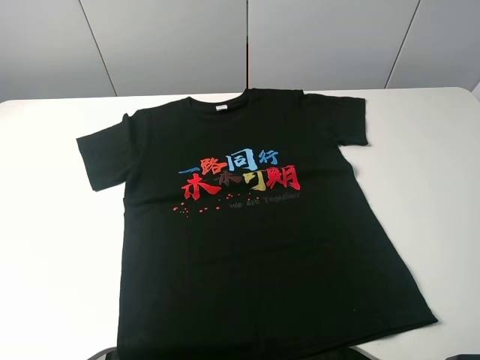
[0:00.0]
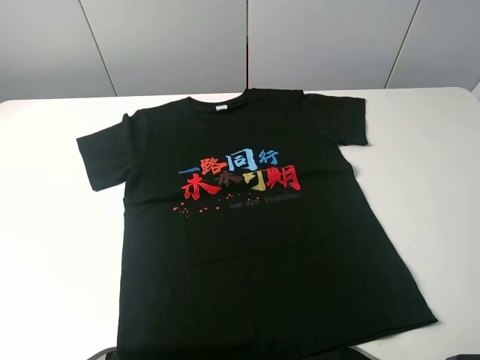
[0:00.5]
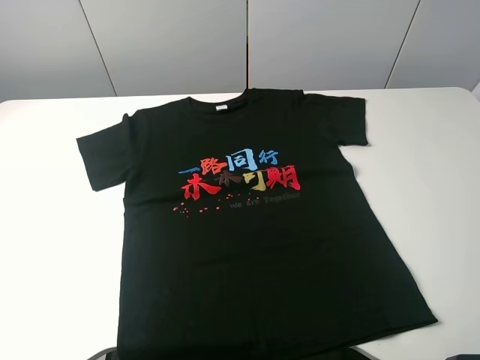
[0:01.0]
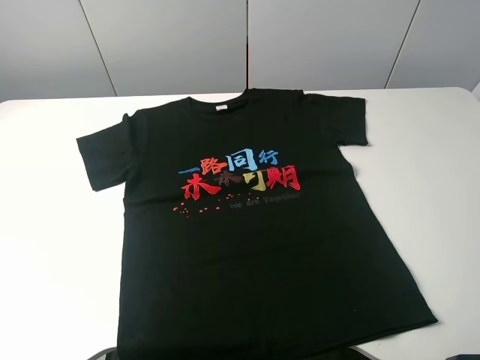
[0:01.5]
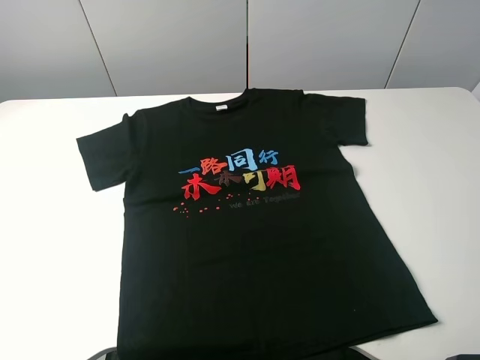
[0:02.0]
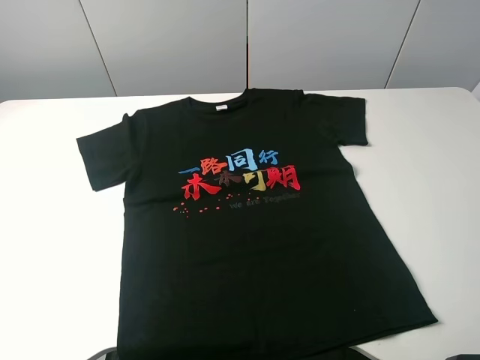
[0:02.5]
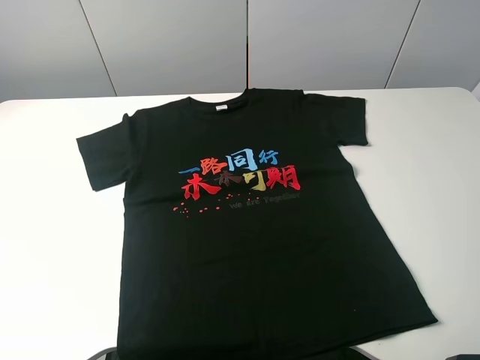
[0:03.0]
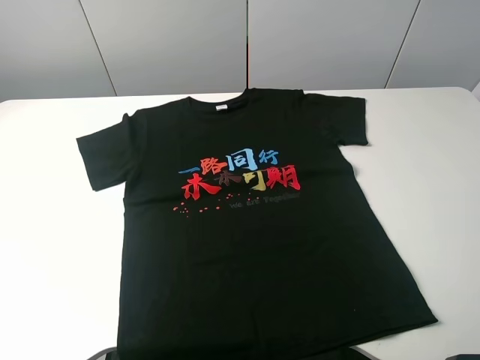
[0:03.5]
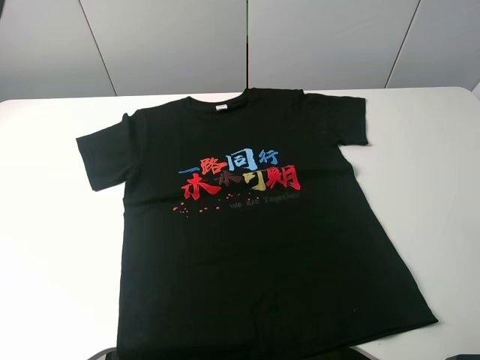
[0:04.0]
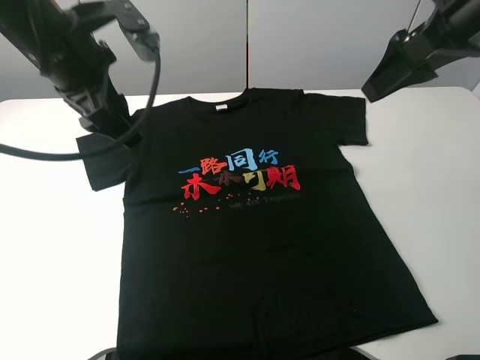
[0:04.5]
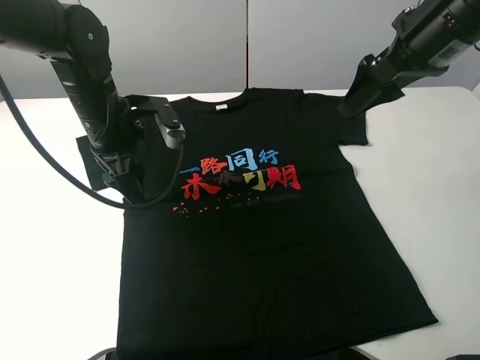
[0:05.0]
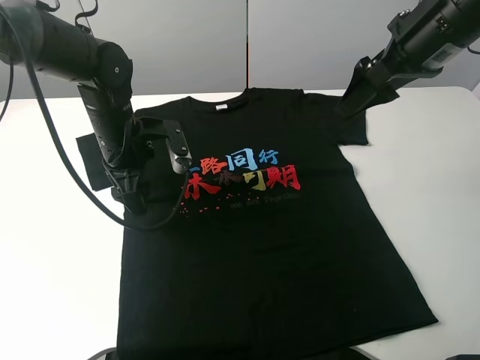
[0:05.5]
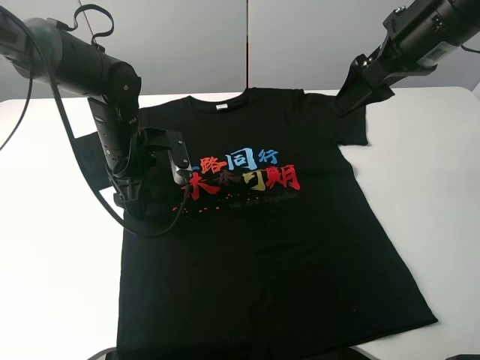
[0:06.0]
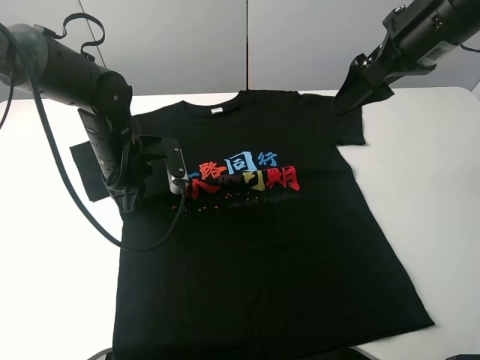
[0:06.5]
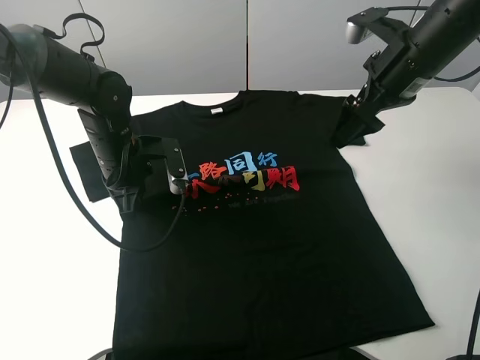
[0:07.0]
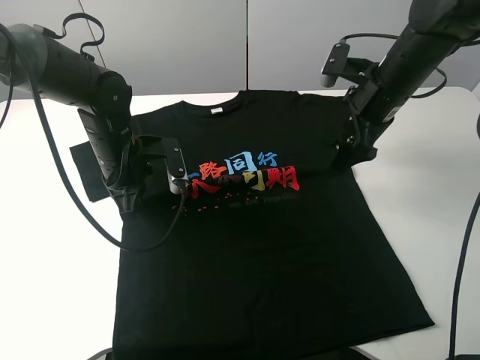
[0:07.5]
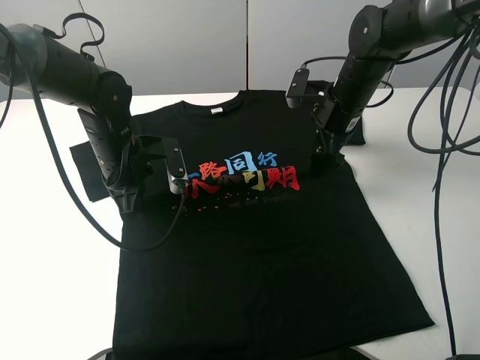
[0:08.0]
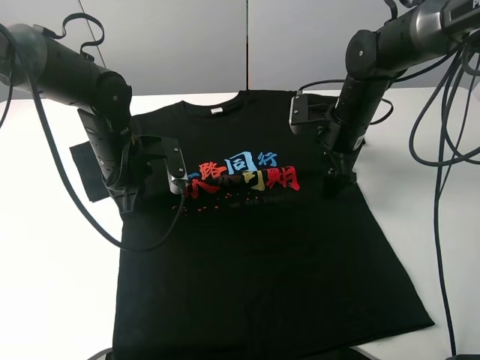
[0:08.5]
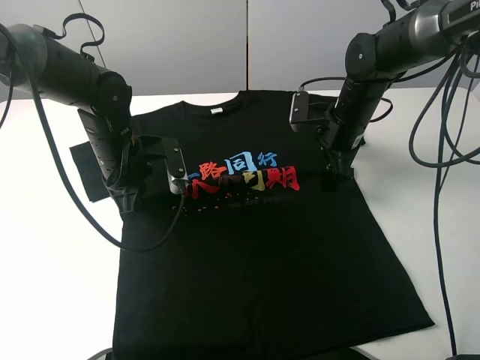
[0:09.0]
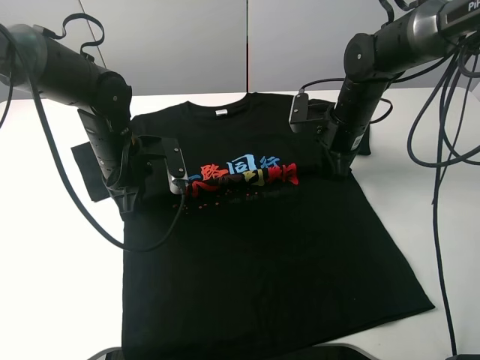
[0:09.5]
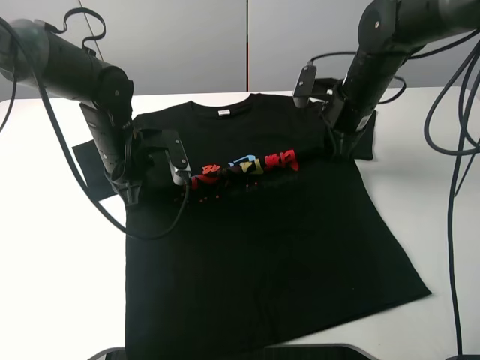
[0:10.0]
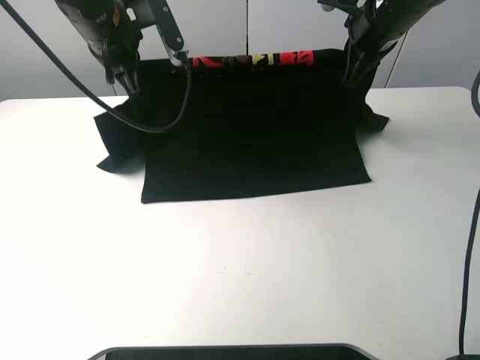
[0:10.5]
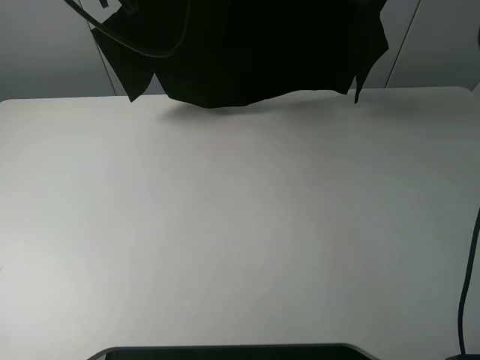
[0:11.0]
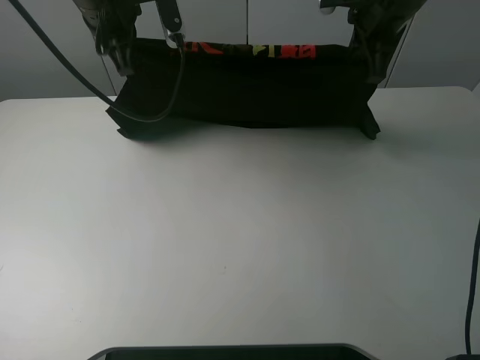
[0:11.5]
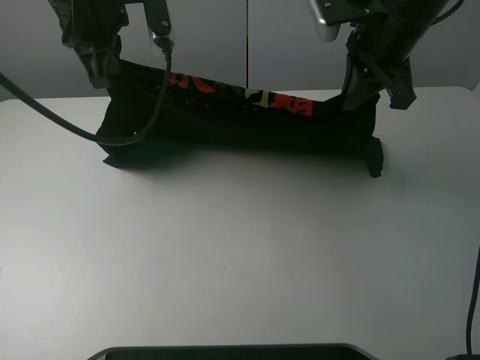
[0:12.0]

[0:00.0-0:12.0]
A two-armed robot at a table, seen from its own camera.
Task of the whole recording: fold the clothes on the table.
Step, 0:00.0 to 0:09.5: Lift the black T-shirt with the left gripper.
0:00.0 to 0:02.0: Both grippers stay about where they are.
0:04.0 to 0:06.0: The right gripper goes roughly 20 cm forward, downward and to the left, while the left gripper goes approximately 30 cm downward and to the right.
0:06.0 to 0:08.0: The right gripper goes roughly 15 cm downward and forward. Meanwhile the left gripper closes up.
0:08.0 to 0:10.0: The right gripper closes.
0:10.0 to 0:12.0: The right gripper travels upward by approximately 10 cm. Meanwhile the left gripper is displaced upward by about 20 cm.

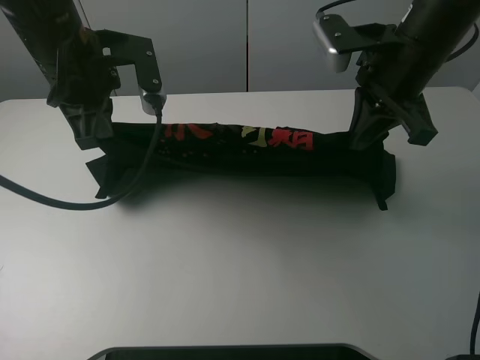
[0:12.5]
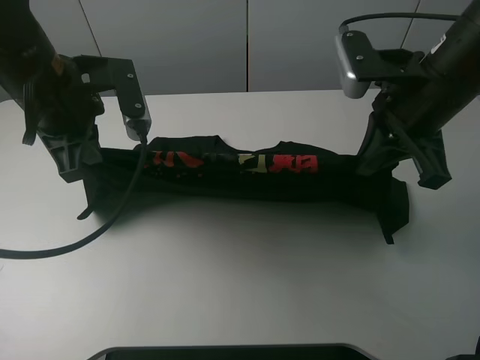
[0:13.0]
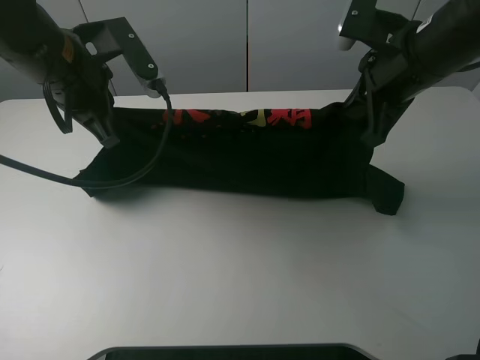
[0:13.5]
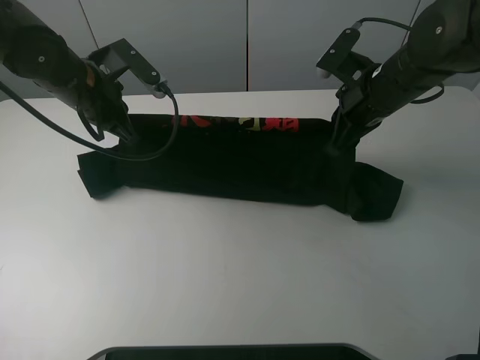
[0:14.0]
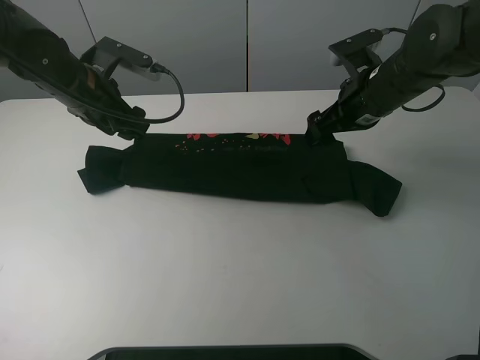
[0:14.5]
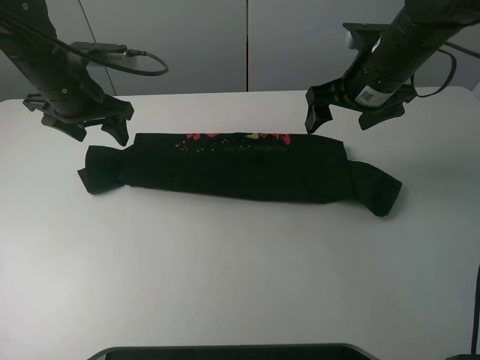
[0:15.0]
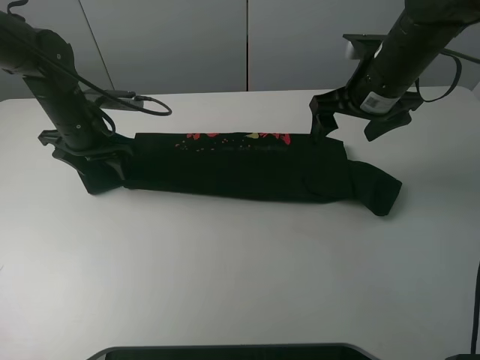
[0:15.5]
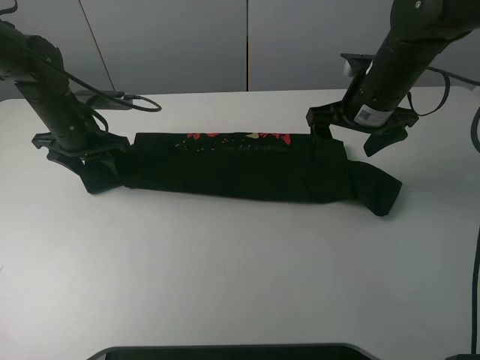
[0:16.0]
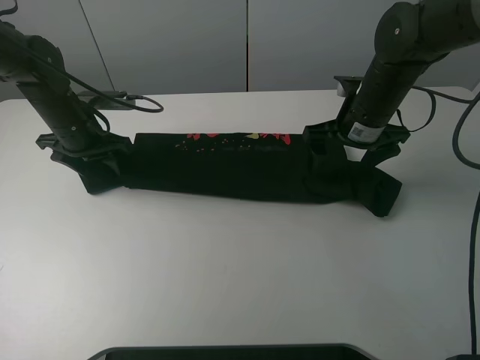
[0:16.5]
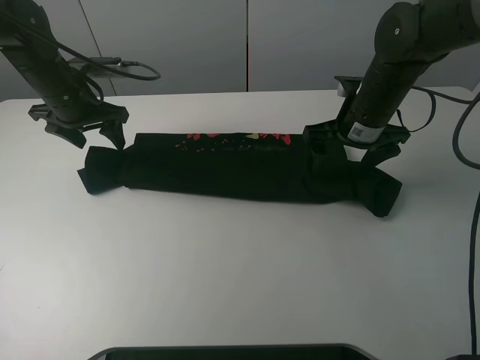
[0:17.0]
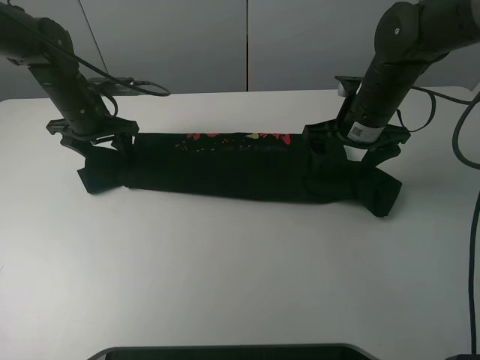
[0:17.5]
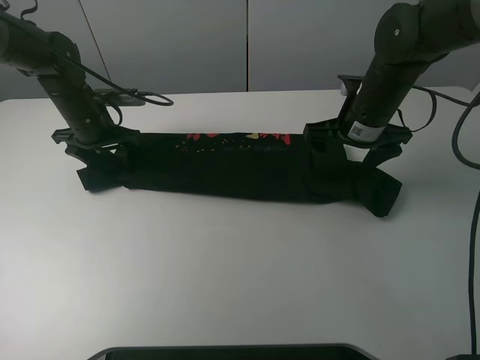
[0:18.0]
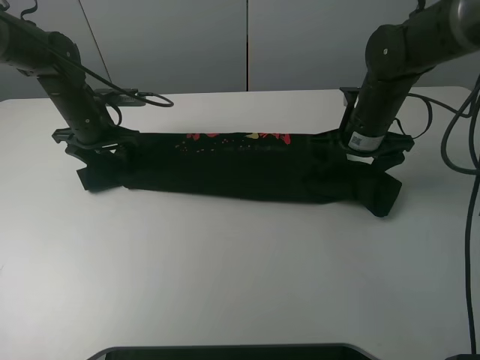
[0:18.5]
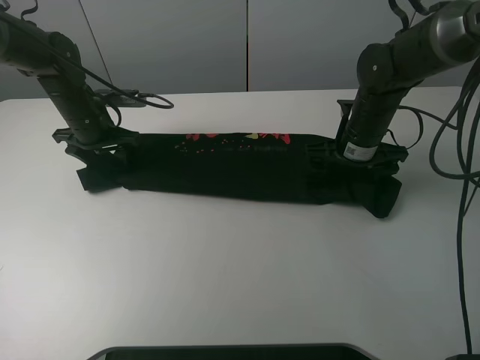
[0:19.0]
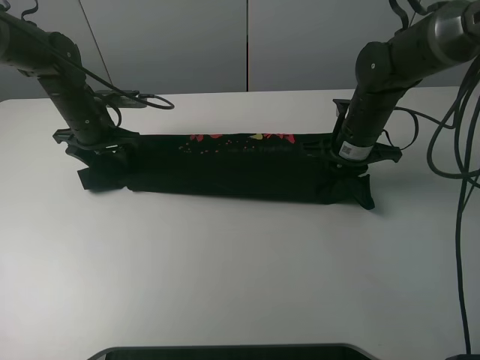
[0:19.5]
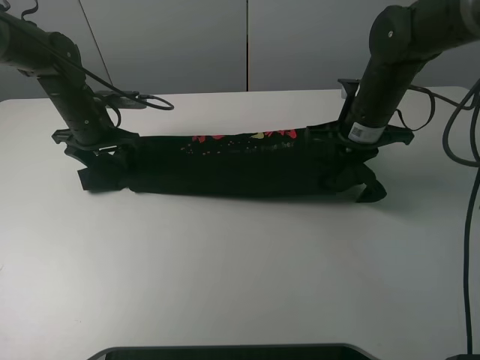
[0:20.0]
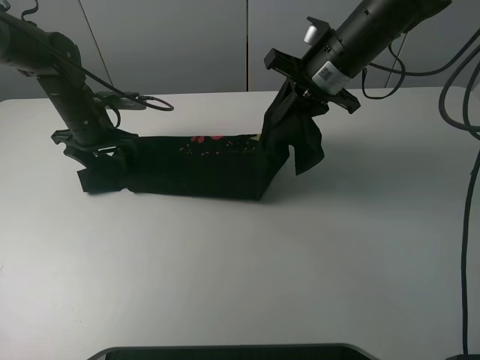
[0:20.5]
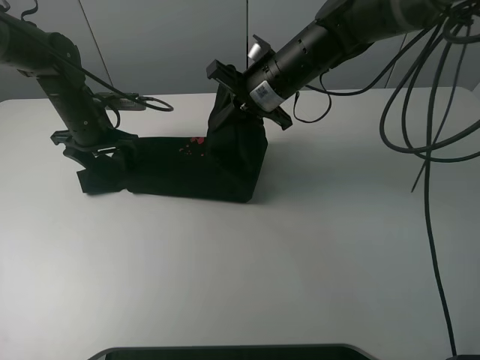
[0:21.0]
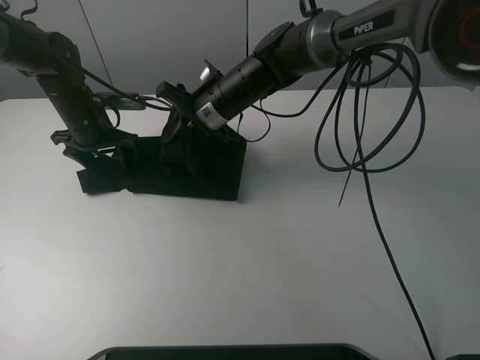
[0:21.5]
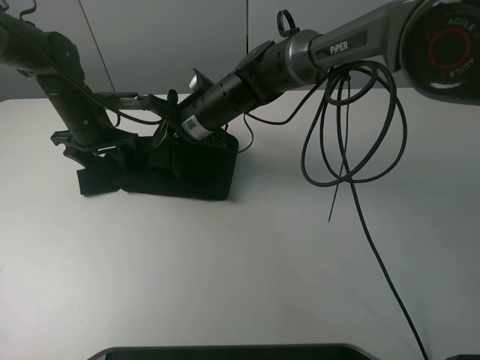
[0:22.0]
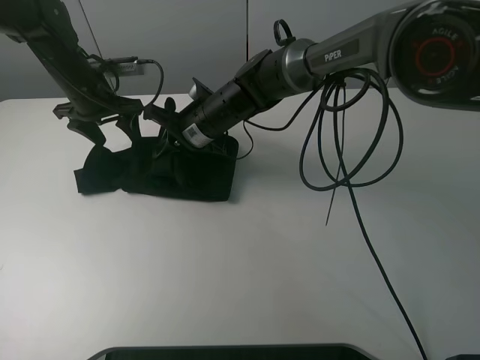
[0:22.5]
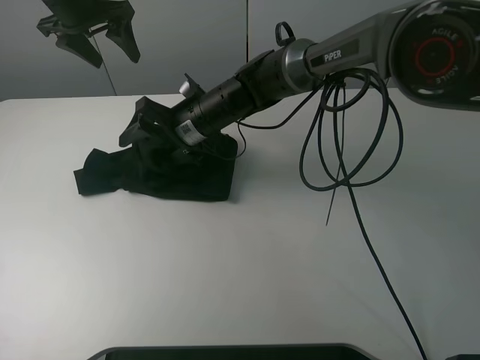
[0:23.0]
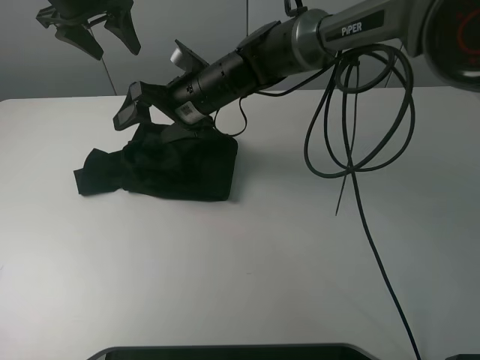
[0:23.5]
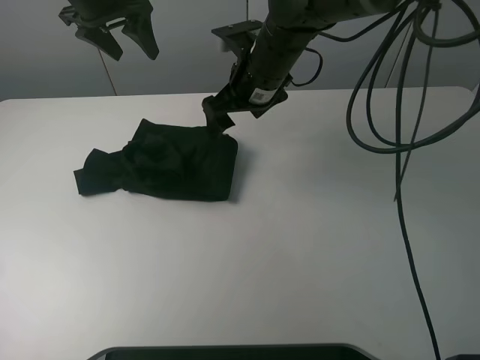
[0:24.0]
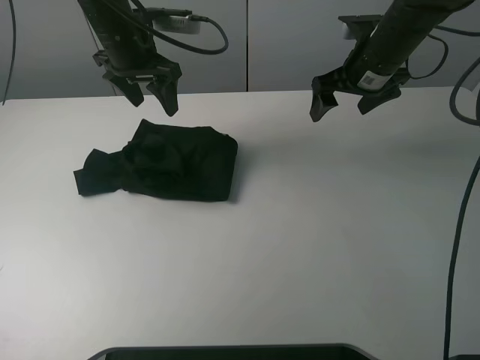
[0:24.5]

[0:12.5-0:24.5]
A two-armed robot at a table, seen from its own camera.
Task of the whole recording: fold the clothes on the table.
Step, 0:14.5 to 0:19.5: Grasp the black T-shirt with the right gripper.
Step, 0:20.0 to 0:23.5: Fold the black T-shirt from right to left with right gripper.
0:12.5 to 0:14.5: The left gripper is displaced downward and forward by approximately 10 cm, and opens its fingers. The right gripper goes some 10 cm downward, and opens its fingers.
0:14.5 to 0:16.5: The left gripper moves downward, some 5 cm.
0:16.5 to 0:18.5: There are only small adjustments of the grippers.
0:18.5 to 0:20.5: The right gripper travels upward and to the left by approximately 10 cm, and closes.
0:20.5 to 0:22.5: The right gripper travels to the left and downward by roughly 20 cm. Meanwhile the left gripper travels upward by approximately 5 cm.
0:22.5 to 0:24.5: The right gripper heads to the right and upward, covering some 25 cm, and opens its fingers; the left gripper shifts approximately 10 cm to the right and upward.

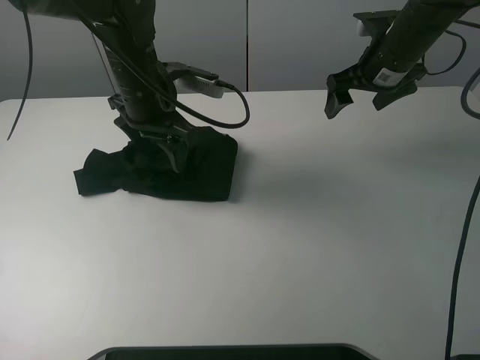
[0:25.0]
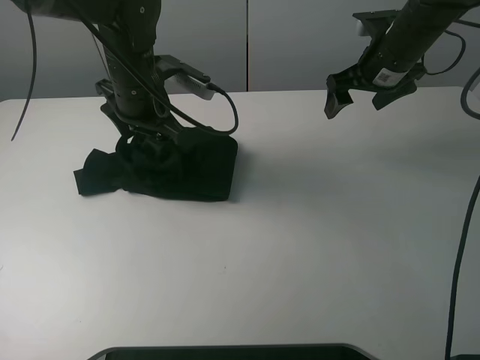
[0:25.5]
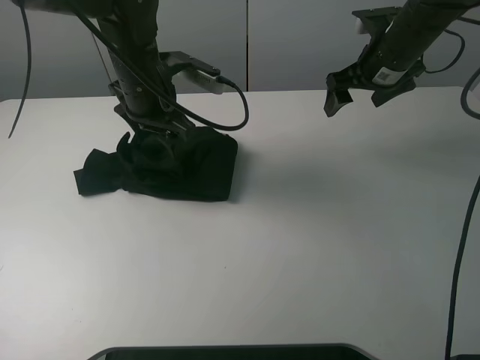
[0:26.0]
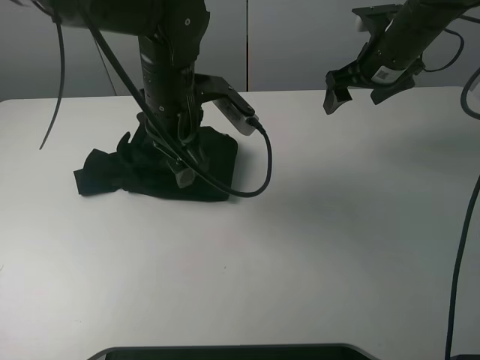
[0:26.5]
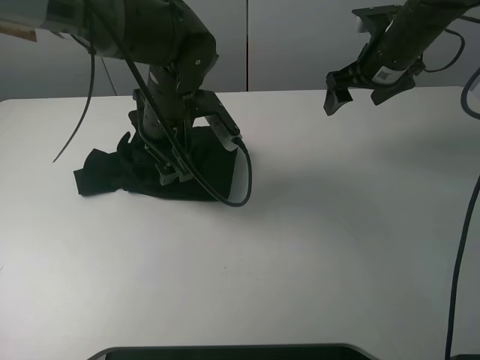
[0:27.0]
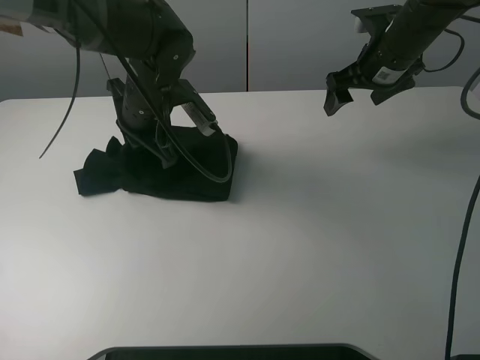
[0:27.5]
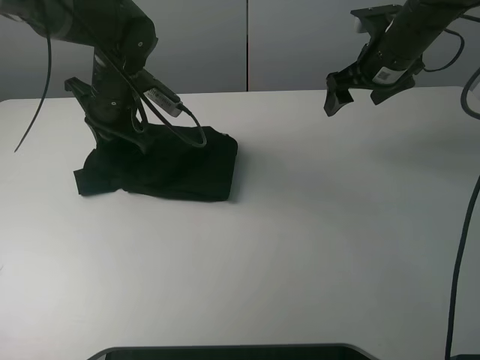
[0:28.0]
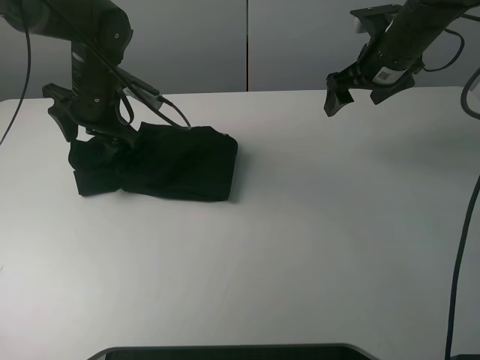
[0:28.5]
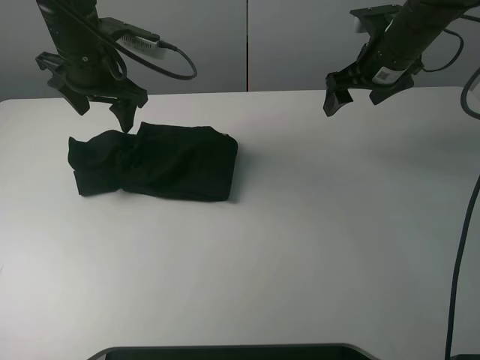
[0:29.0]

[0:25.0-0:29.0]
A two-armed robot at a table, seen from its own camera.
Task of the whole recording: fold the clothes on the table.
0:27.0 to 0:29.0: The left gripper is displaced to the left, upward and forward by some 15 cm, and closes and opens again.
